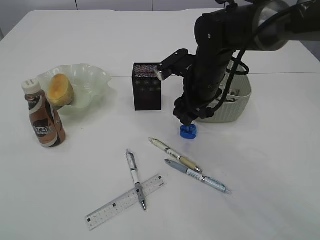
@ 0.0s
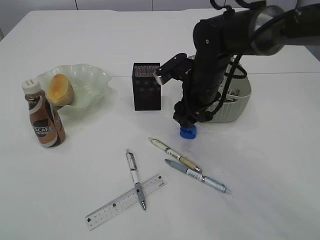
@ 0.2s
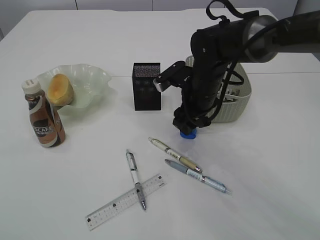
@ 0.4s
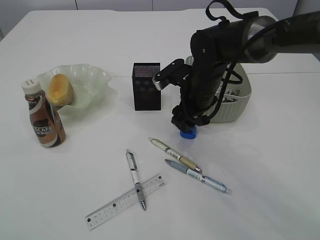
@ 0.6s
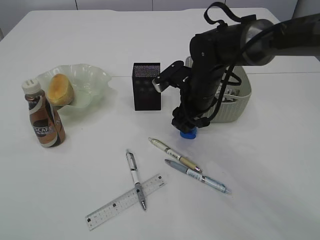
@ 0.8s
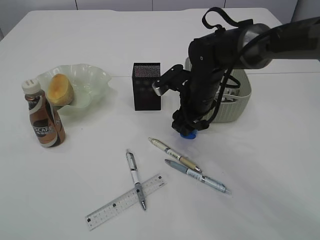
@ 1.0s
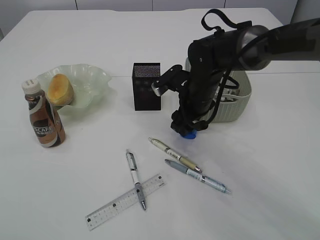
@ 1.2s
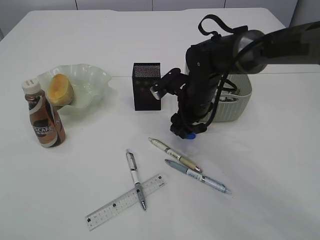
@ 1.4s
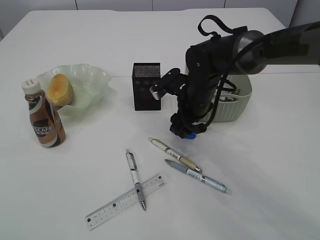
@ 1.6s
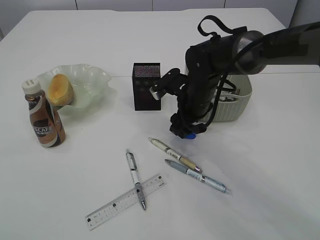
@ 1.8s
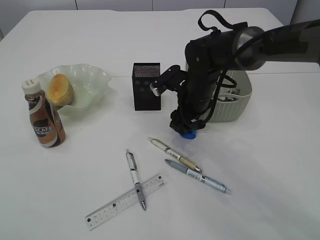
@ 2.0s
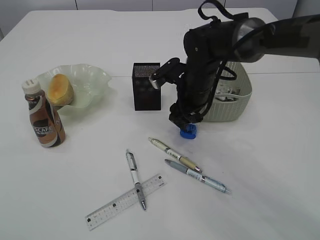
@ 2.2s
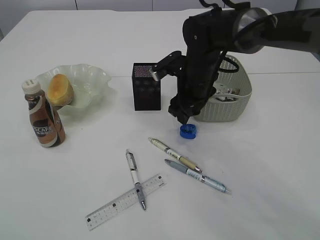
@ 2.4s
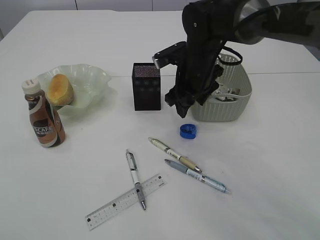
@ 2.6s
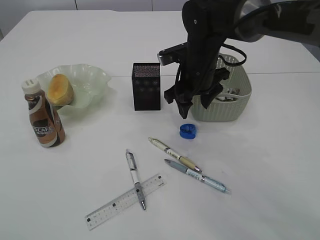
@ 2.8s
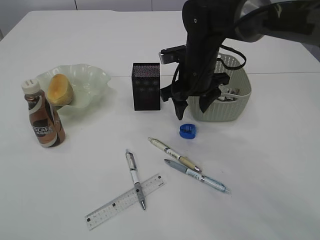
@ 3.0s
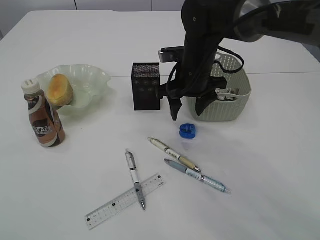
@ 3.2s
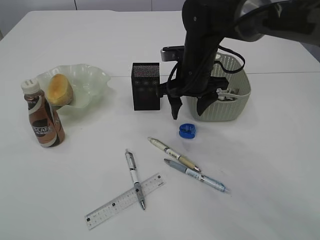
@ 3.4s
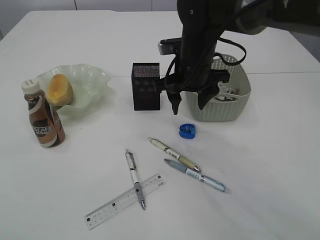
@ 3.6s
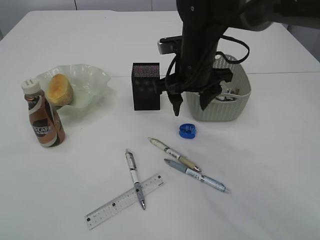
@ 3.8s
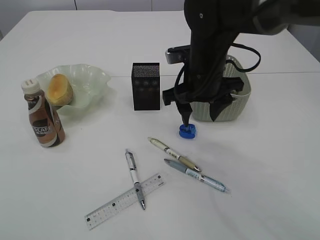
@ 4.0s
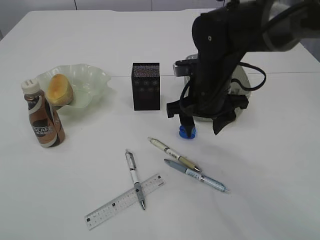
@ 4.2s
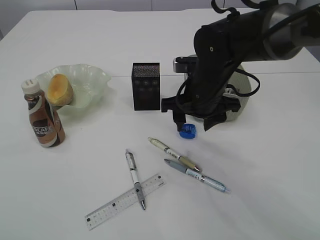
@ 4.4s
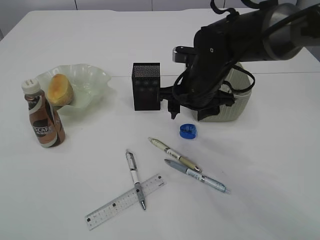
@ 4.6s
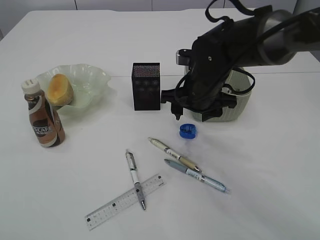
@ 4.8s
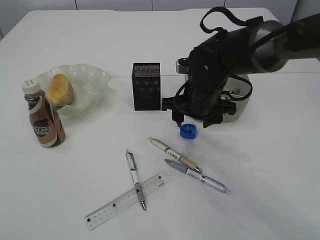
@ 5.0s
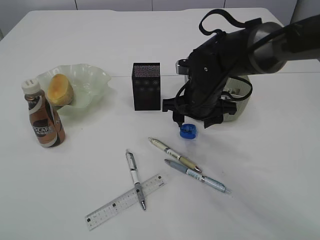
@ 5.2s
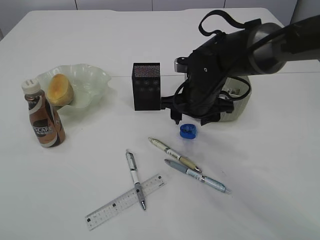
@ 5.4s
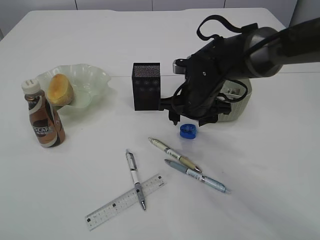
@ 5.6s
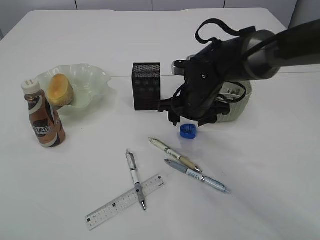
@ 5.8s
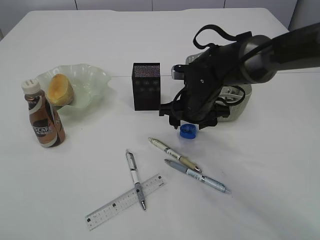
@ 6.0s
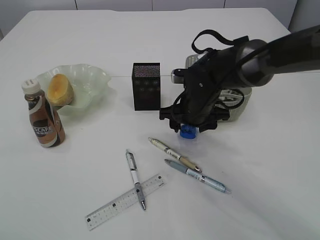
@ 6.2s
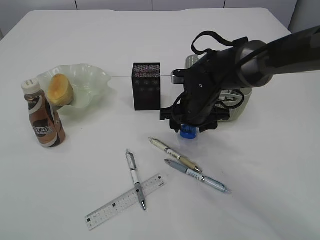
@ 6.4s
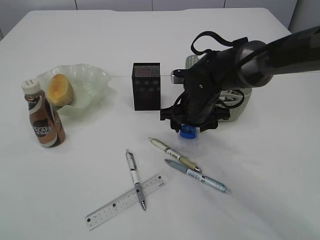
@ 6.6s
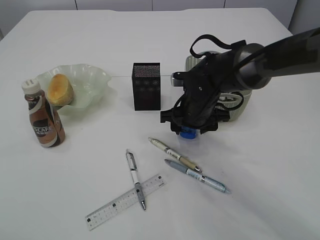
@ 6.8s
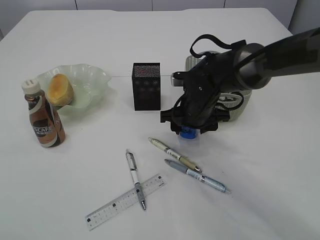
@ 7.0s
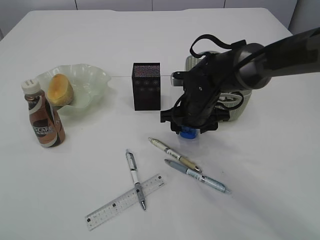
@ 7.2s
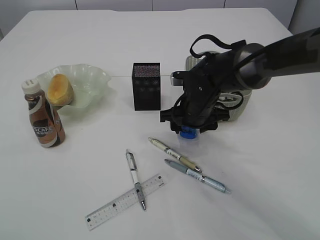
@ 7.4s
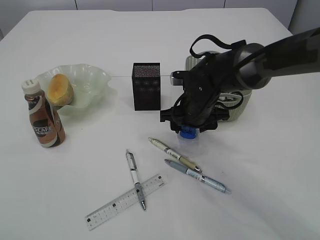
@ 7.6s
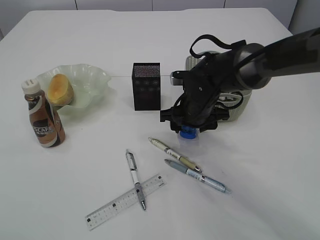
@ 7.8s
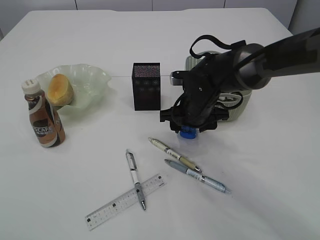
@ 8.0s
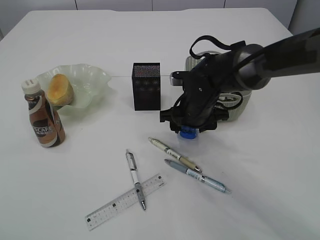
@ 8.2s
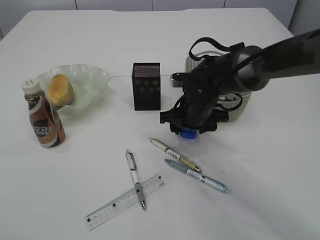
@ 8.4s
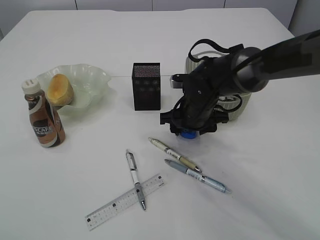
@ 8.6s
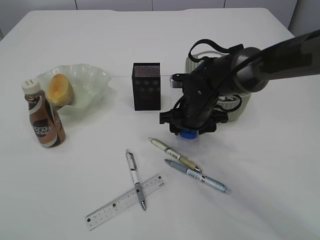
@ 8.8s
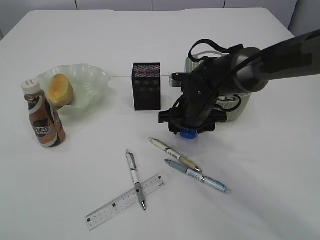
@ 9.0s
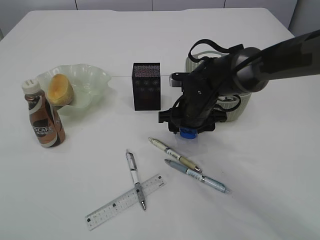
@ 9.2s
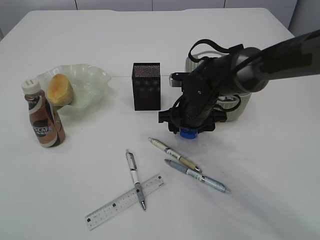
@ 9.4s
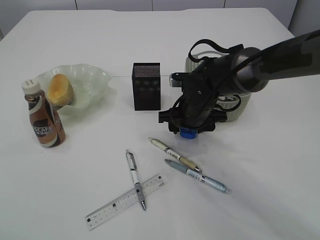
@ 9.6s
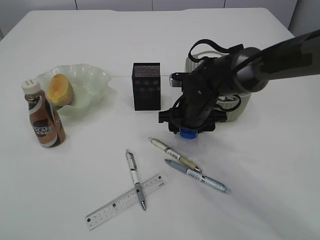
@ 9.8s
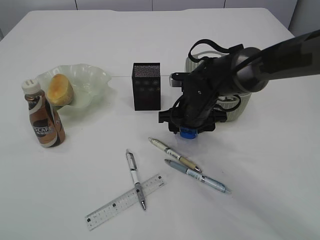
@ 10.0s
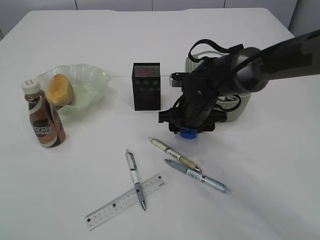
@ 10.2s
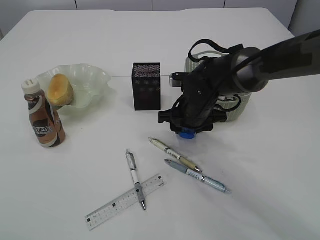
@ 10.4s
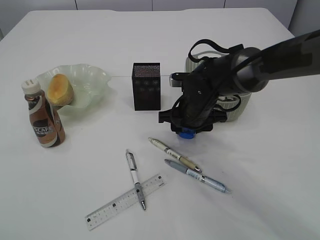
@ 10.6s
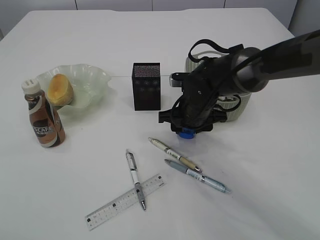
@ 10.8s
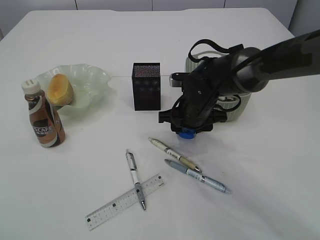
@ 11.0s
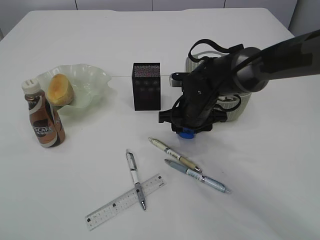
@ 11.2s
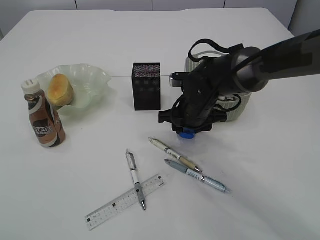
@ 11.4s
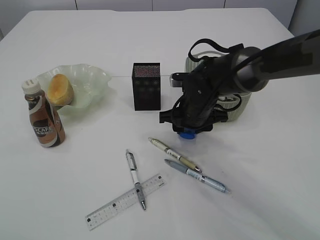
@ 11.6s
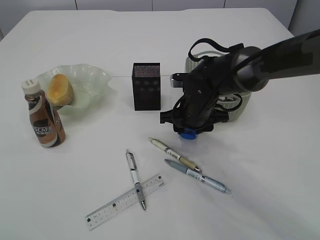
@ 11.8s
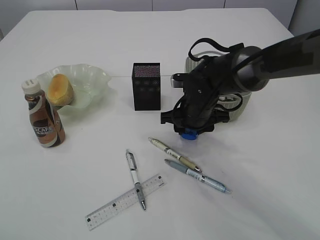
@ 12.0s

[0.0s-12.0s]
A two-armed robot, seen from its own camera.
0.0s to 1.6s: The right gripper moves downward, roughly 5 cm.
1.6s to 3.0s: The right gripper heads upward, covering about 5 cm.
3.0s to 4.4s: The right gripper moves backward, roughly 5 cm.
4.4s to 6.0s: The right gripper moves roughly 5 cm.
6.0s to 7.6s: There are only small adjustments of the grippers.
7.6s to 12.0s: Neither gripper changes place.

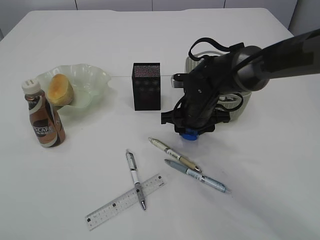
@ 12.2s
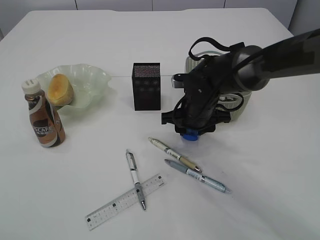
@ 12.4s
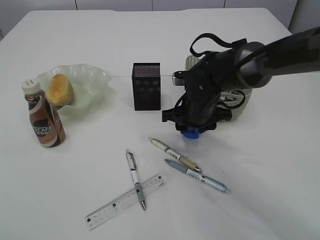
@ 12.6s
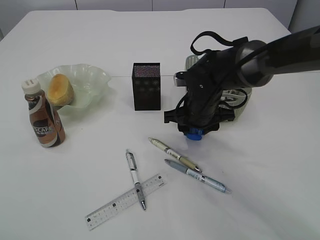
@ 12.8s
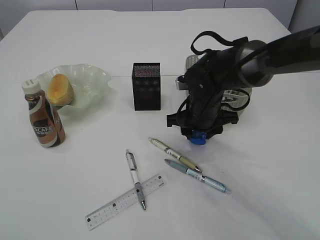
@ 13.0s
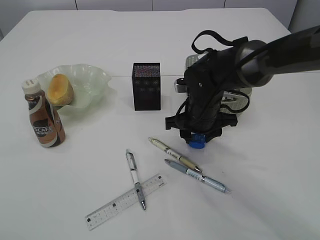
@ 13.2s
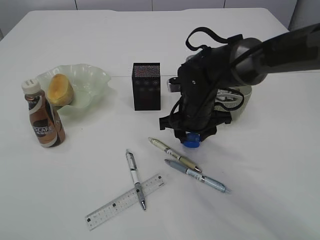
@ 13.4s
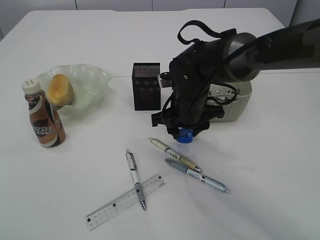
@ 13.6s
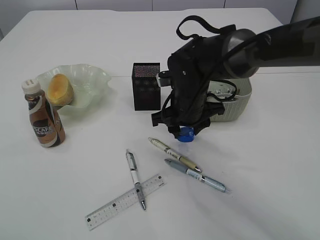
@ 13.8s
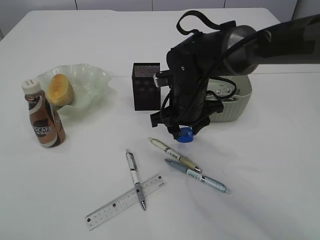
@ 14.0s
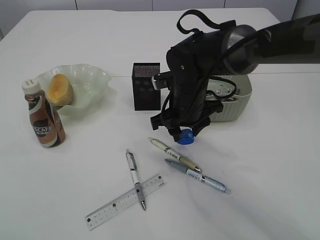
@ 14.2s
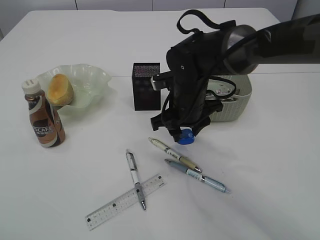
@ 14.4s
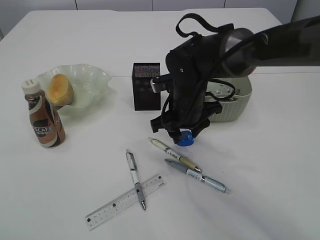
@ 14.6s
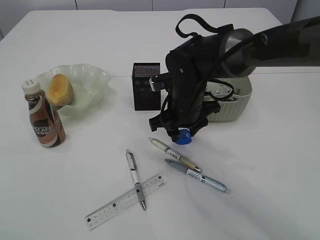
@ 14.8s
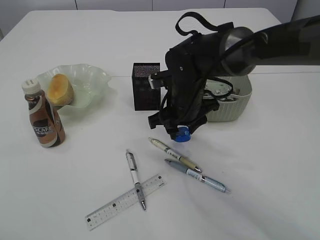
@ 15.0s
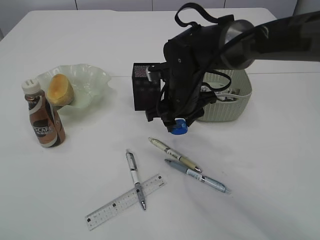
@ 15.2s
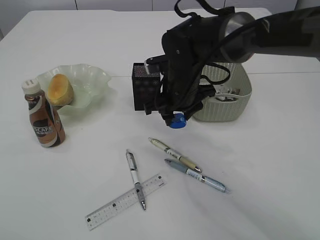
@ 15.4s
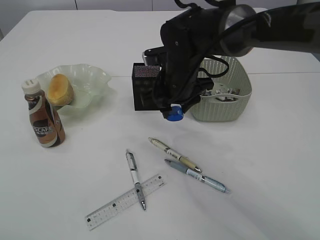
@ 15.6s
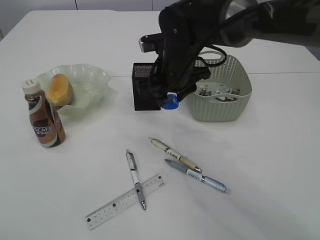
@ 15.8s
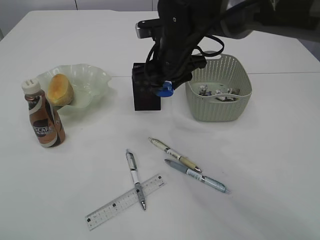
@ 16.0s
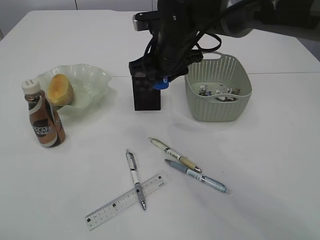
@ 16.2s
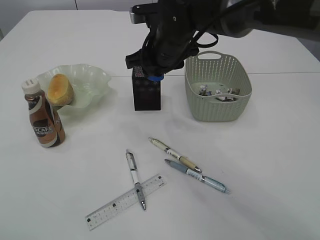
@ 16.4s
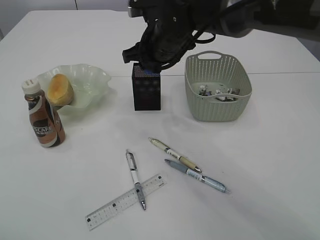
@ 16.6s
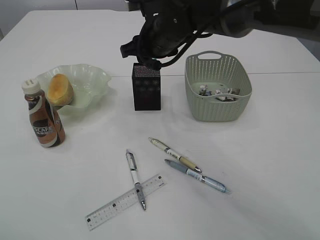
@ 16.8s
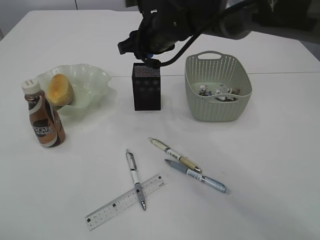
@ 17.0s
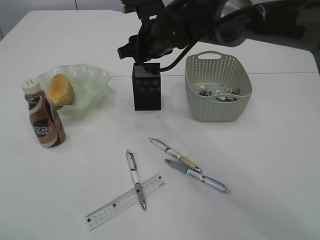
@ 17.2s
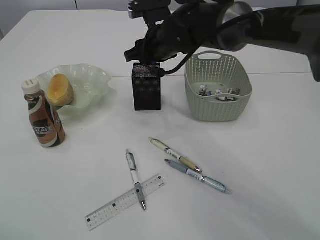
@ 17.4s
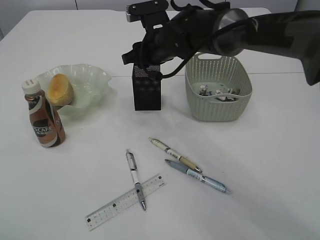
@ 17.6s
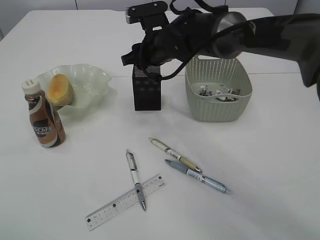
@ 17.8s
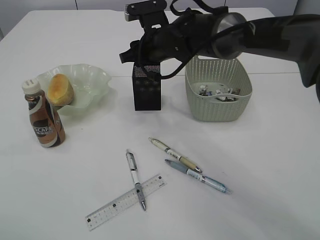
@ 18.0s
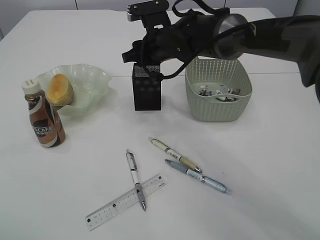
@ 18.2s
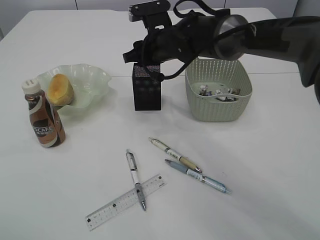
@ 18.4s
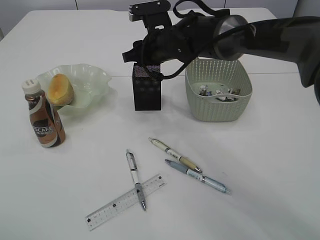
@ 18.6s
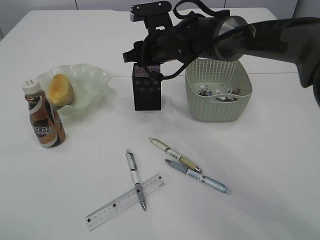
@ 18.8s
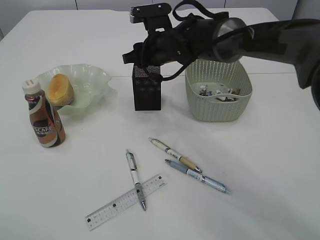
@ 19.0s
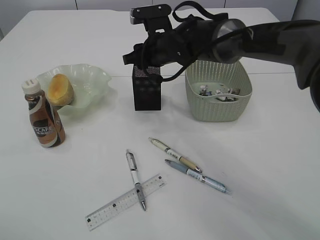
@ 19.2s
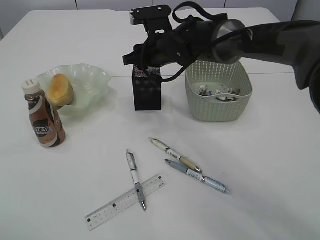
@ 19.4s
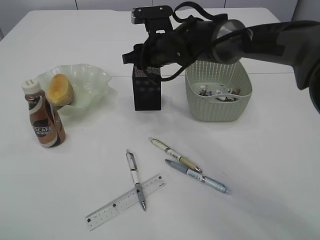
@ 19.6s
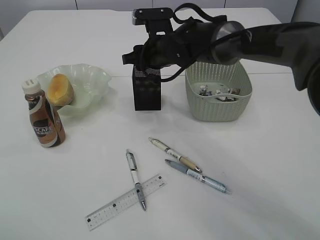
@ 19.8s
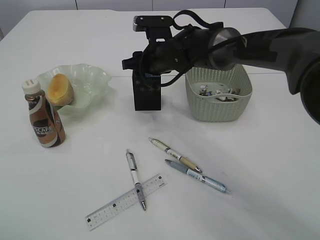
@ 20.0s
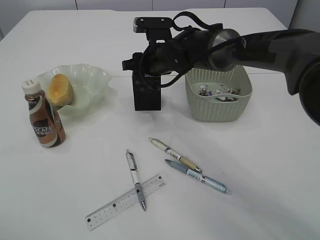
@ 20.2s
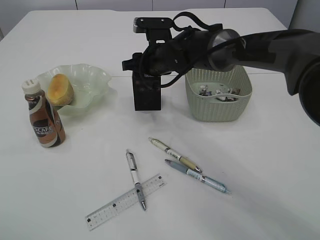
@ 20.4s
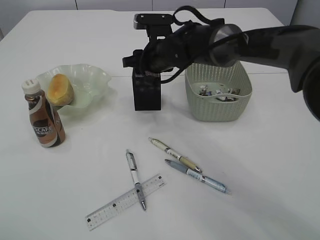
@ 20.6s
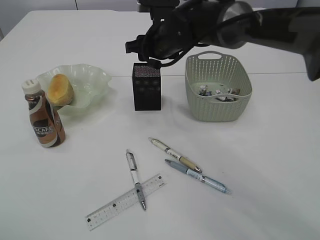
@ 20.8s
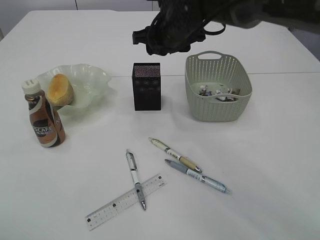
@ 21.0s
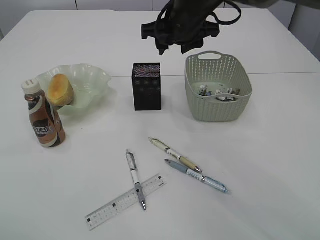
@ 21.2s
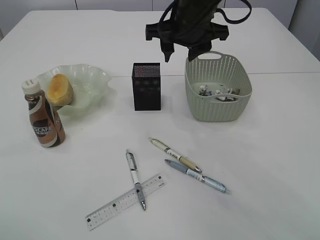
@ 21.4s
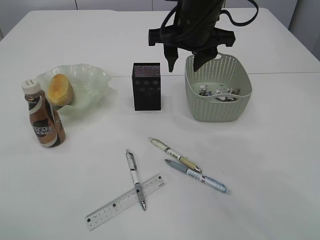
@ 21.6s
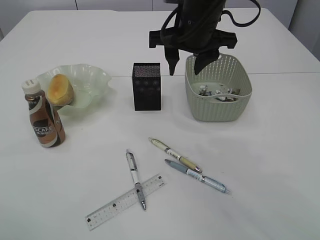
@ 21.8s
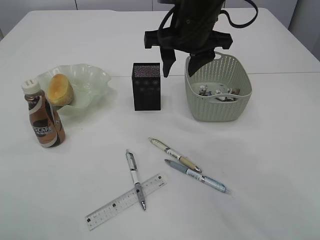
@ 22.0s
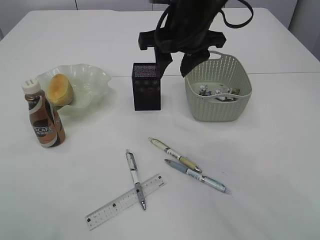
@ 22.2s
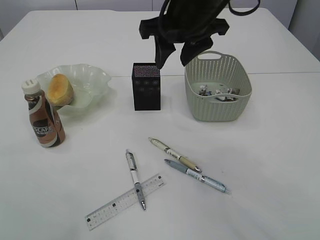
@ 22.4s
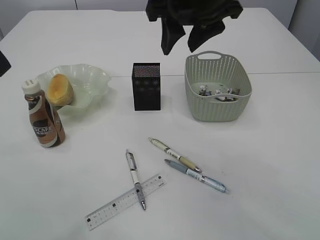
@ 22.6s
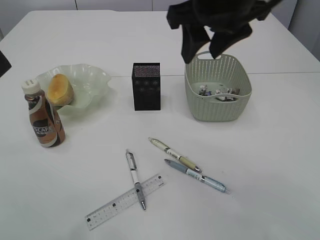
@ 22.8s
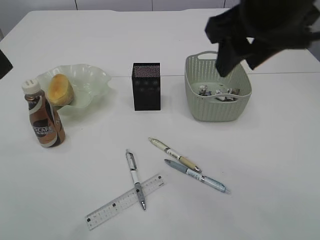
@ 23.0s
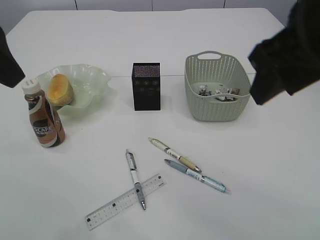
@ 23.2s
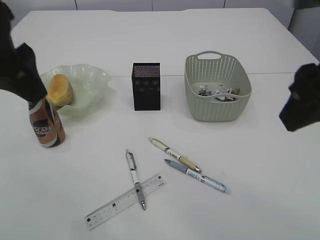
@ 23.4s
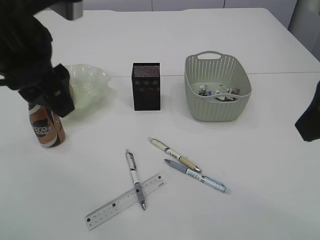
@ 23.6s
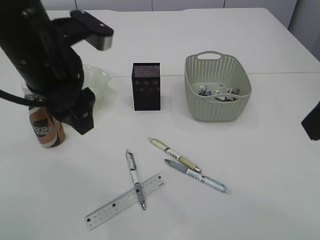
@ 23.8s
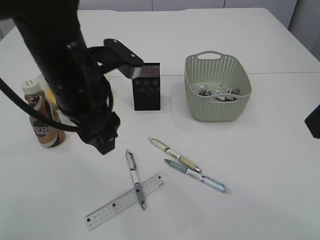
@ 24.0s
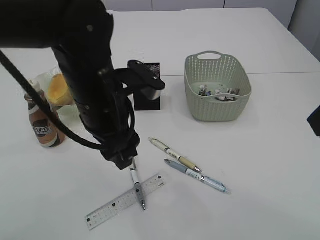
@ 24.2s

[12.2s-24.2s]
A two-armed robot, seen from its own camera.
Step, 12.2s to 15.4s: Pick up the blue pencil sharpener.
Step, 15.6s to 21.0s: Place the blue pencil sharpener into the pen holder.
12.2s to 15.2s: There are only small adjustments of the grippers.
15.2s to 16.6s: The right gripper travels upward by about 10 cm.
16.6s to 18.2s: The right gripper ends up about 5 cm from where it was.
18.2s to 19.8s: The grippers make only small movements.
19.8s to 21.2s: The right gripper heads upward, covering about 10 cm.
21.2s to 22.6s: The left gripper shifts about 10 cm to the right; the right gripper heads backward and upward, covering approximately 10 cm.
22.6s to 24.2s: The left gripper moves downward and to the right, some 20 cm. The right gripper is displaced backward and to the right by about 25 cm.
